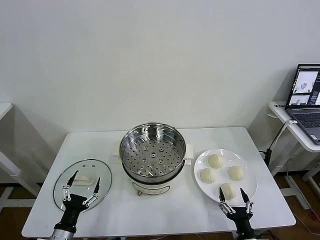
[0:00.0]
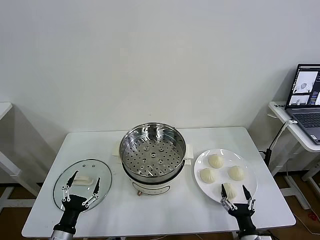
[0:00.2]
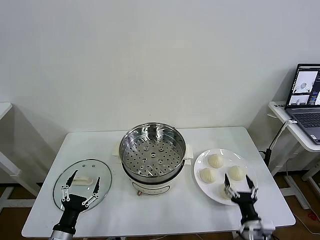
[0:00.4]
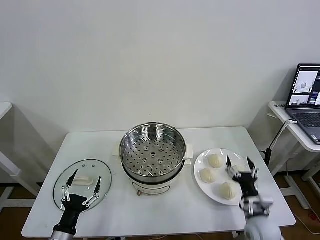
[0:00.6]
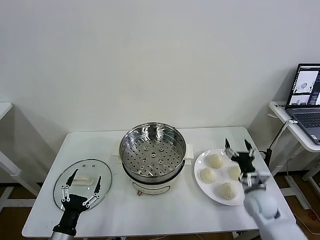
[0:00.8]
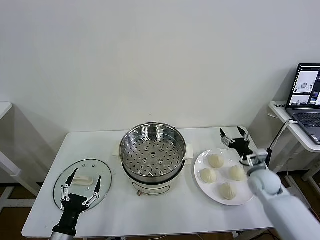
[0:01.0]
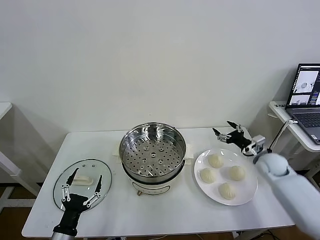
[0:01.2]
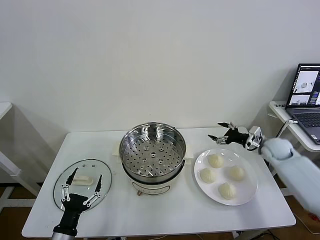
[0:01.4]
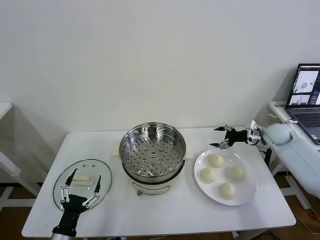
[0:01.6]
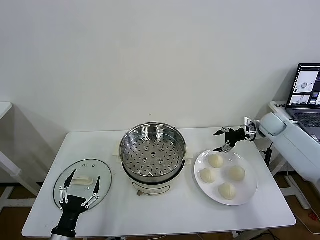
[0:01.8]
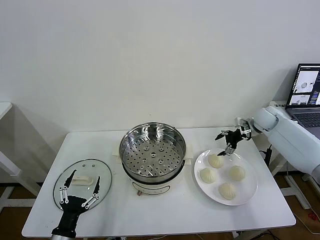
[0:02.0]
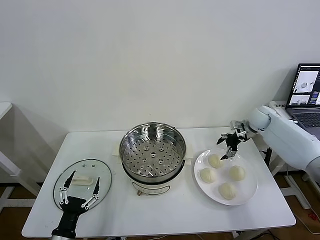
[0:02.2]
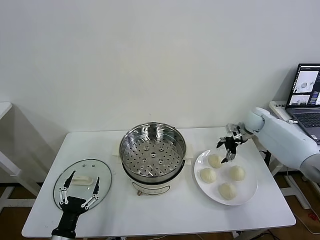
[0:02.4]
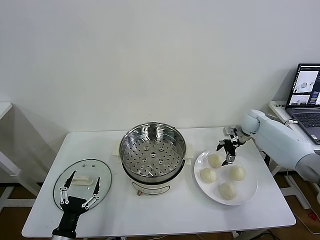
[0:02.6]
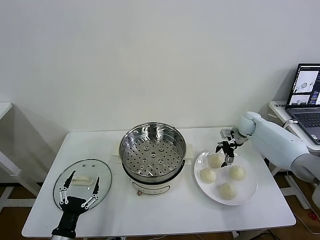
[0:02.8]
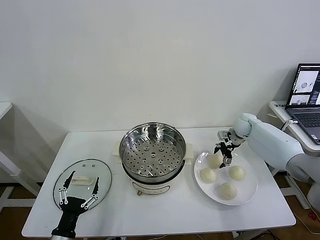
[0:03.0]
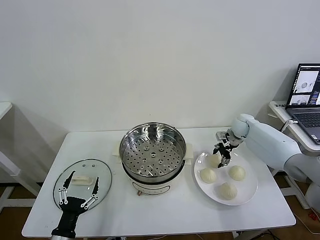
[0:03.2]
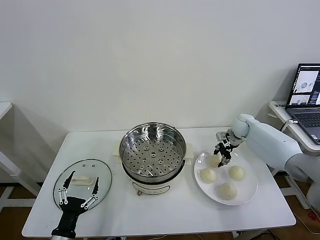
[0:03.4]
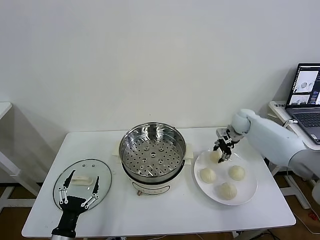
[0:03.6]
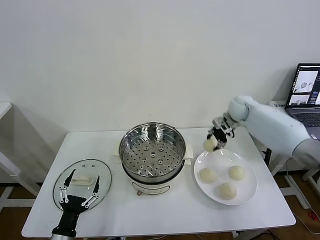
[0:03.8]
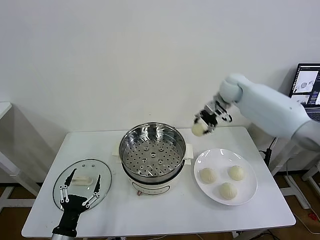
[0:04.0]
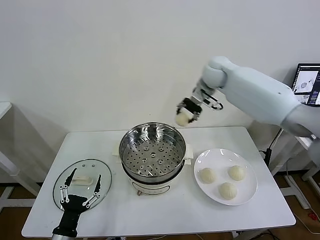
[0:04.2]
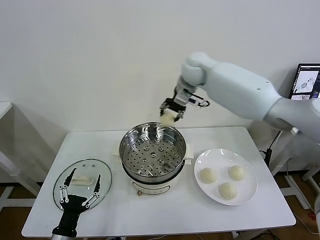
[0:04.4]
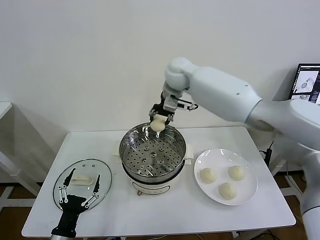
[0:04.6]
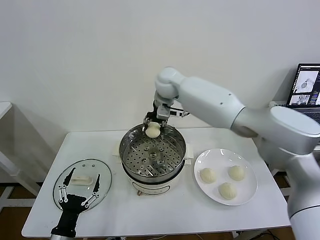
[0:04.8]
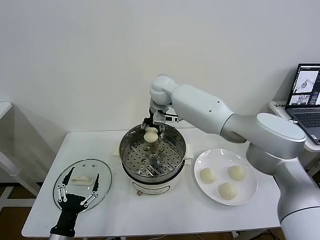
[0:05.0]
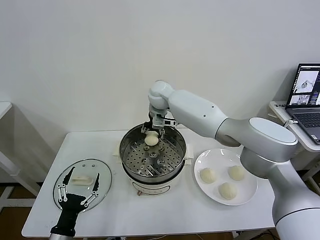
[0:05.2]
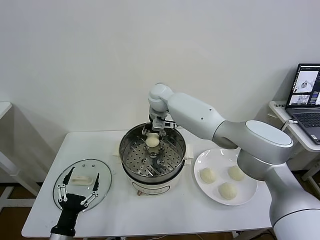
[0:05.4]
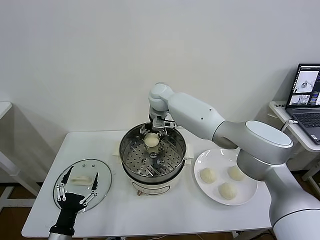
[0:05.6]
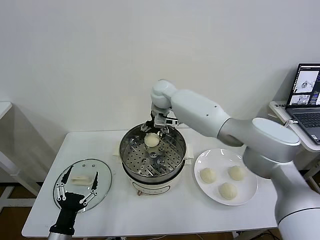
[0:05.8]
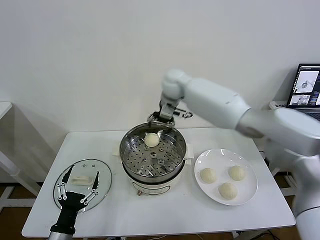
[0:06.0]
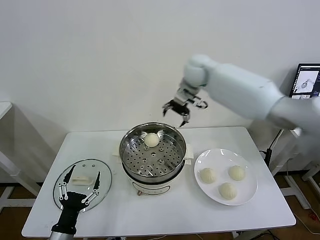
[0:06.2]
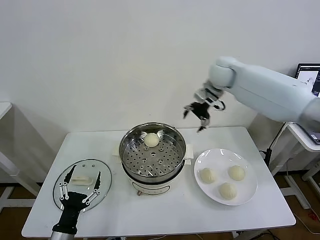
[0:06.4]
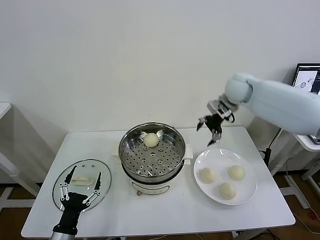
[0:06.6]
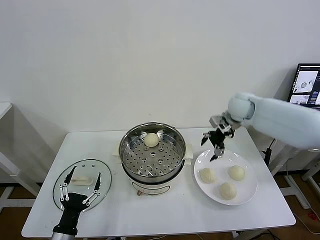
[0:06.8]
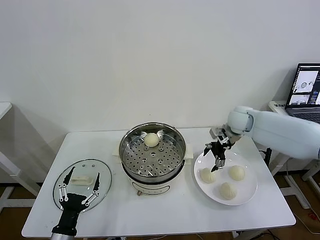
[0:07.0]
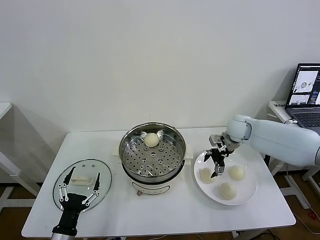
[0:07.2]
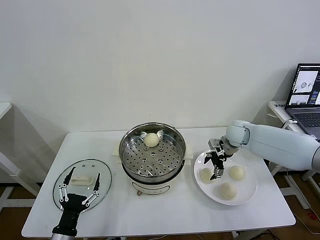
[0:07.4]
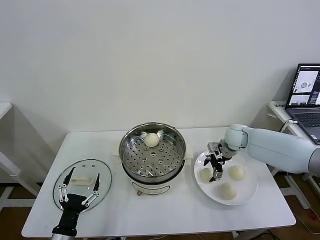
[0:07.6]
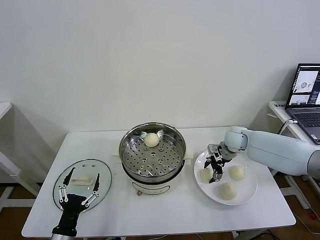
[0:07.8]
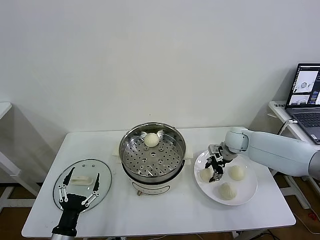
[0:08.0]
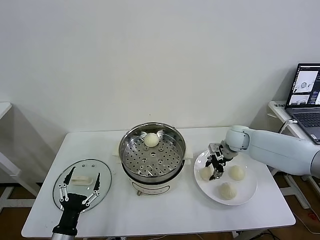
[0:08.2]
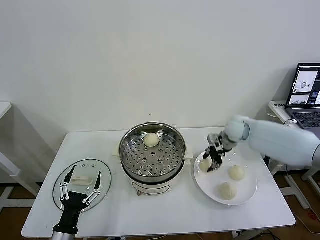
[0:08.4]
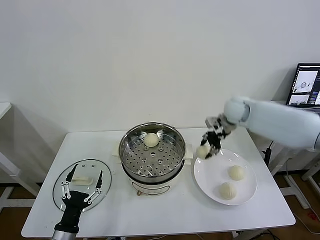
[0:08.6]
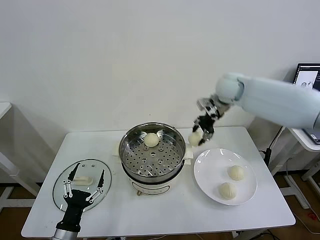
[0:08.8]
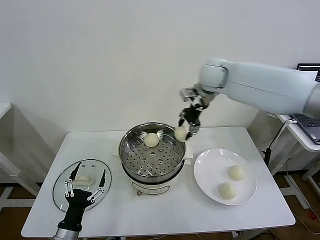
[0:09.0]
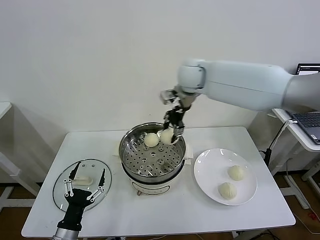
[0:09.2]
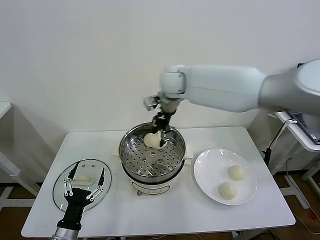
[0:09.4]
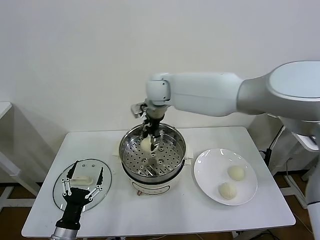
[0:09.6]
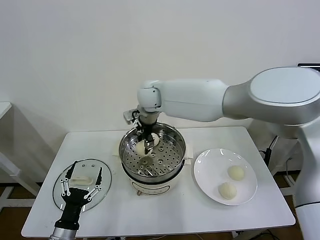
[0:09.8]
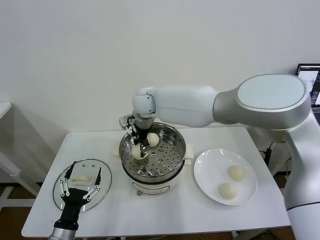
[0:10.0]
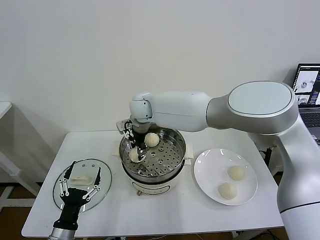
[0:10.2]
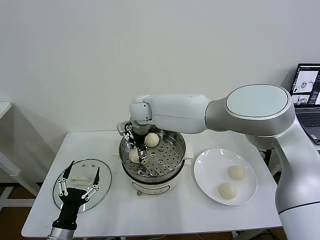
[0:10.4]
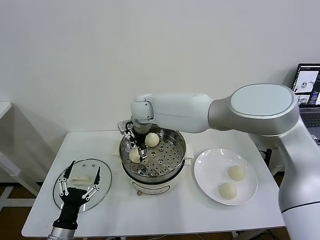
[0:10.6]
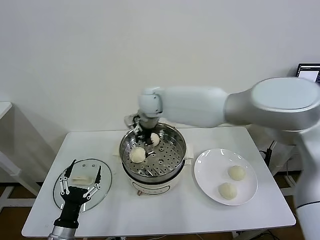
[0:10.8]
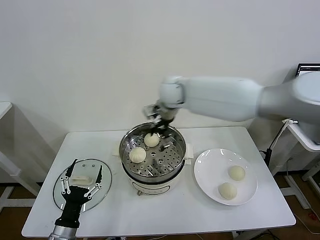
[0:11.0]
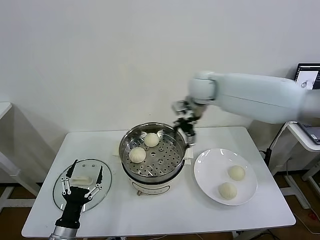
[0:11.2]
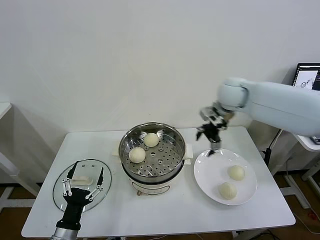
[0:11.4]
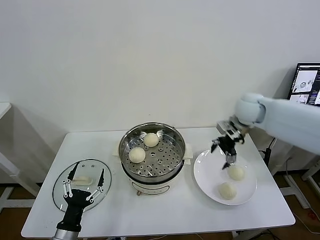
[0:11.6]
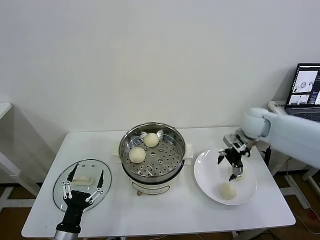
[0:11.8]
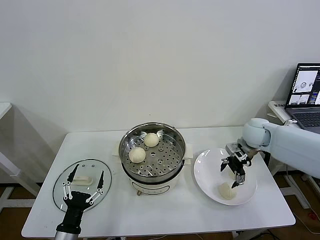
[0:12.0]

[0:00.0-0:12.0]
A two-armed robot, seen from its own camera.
Task of the whole recording: take steamed baozi put them in steamer then cover it.
Step, 0:00.0 to 0:03.2: Grasp the baozi in the plate with right gripper.
Step, 0:03.4 to 0:05.6: Place the baozi on the steamer with right gripper.
Step, 0:05.8 to 0:08.0: Grasp the baozi in the plate with right gripper.
Step, 0:08.2 to 0:10.4: Place the baozi on the steamer with right gripper.
0:01.6 to 0:03.0: The right gripper moves to the left and forward, some 10 cm, and closes.
0:03.0 to 0:04.4: The right gripper goes about 35 cm to the left and upward, and closes its fingers.
0:04.4 to 0:06.0: The right gripper reaches about 10 cm downward, then returns, and opens up.
0:06.0 to 0:07.6: The right gripper goes roughly 30 cm downward and to the right.
0:07.6 to 0:09.0: The right gripper shifts roughly 30 cm upward and to the left, and closes its fingers.
0:09.0 to 0:10.4: The right gripper goes roughly 25 cm to the left and downward, and opens up.
0:10.4 to 0:12.0: The right gripper shifts some 40 cm to the right.

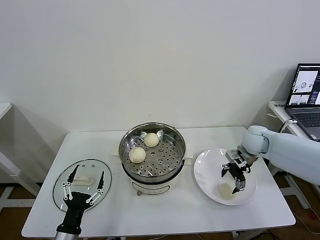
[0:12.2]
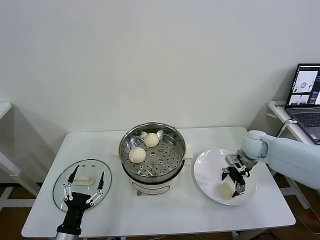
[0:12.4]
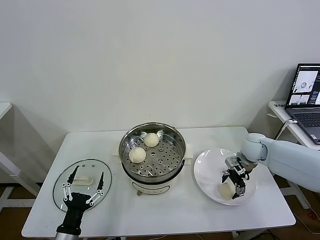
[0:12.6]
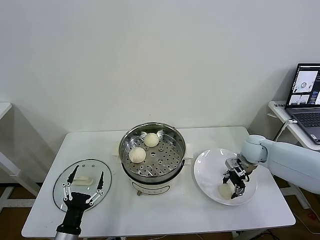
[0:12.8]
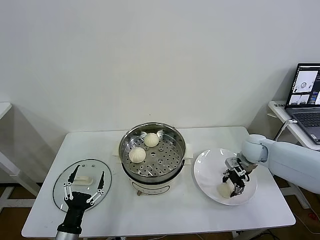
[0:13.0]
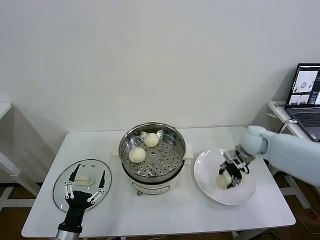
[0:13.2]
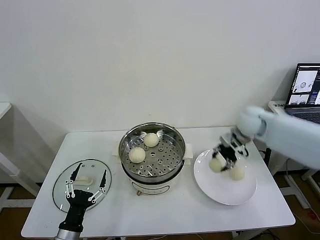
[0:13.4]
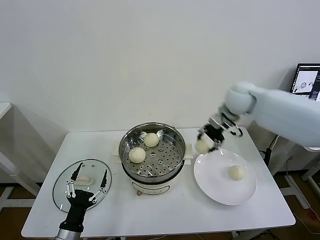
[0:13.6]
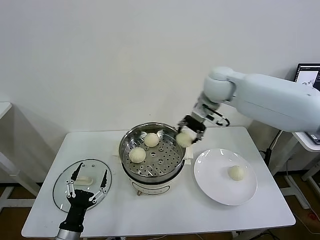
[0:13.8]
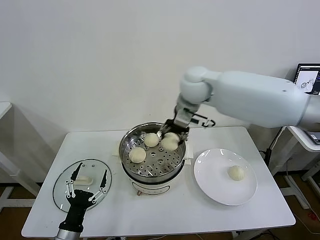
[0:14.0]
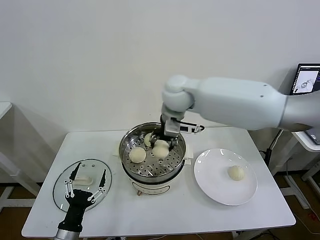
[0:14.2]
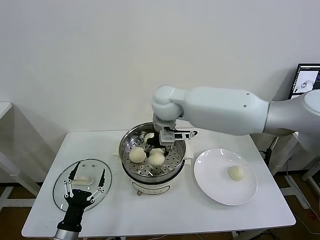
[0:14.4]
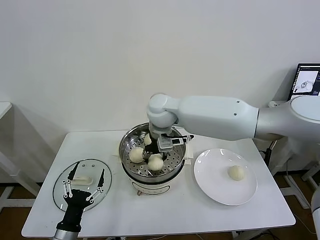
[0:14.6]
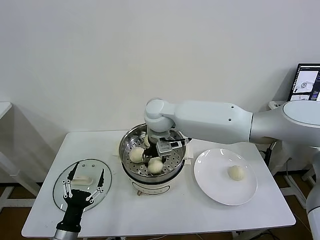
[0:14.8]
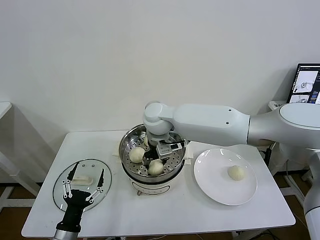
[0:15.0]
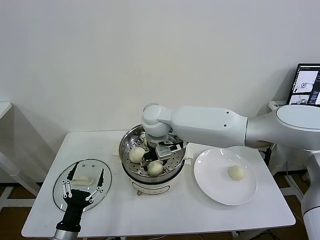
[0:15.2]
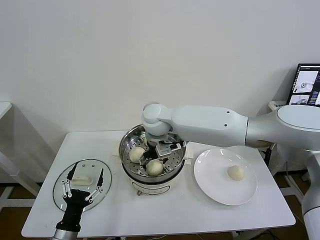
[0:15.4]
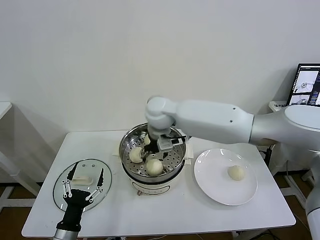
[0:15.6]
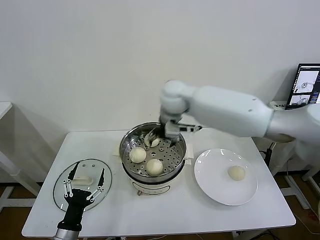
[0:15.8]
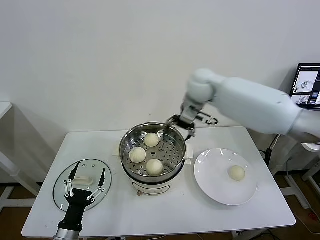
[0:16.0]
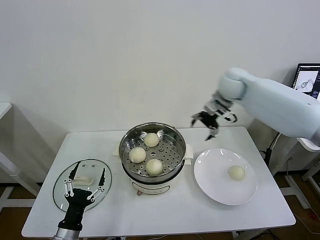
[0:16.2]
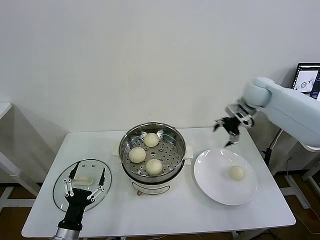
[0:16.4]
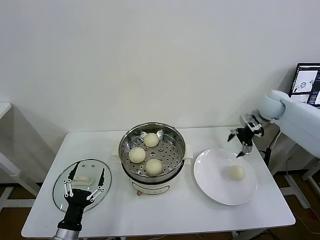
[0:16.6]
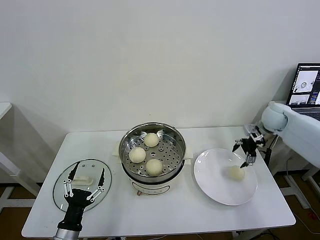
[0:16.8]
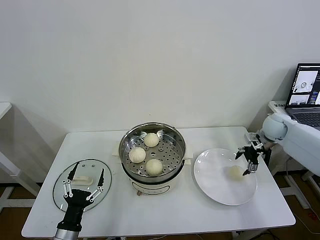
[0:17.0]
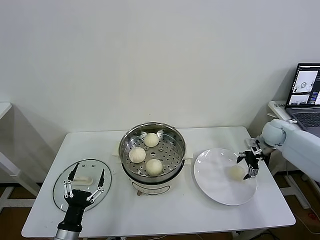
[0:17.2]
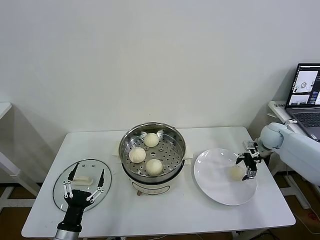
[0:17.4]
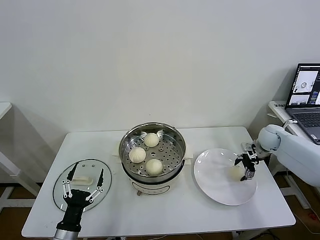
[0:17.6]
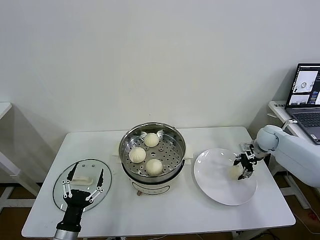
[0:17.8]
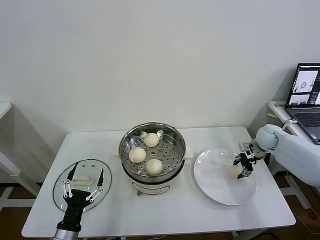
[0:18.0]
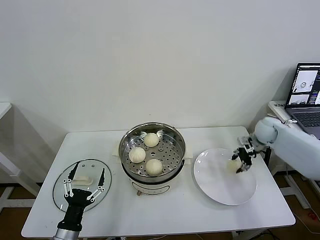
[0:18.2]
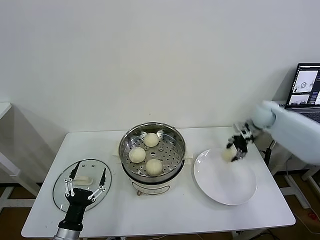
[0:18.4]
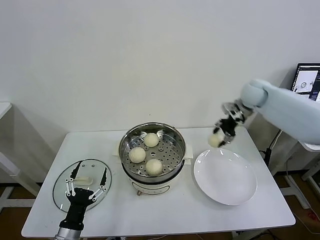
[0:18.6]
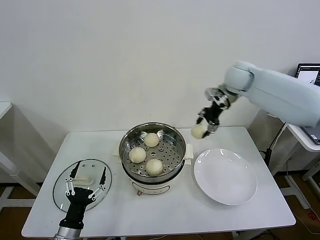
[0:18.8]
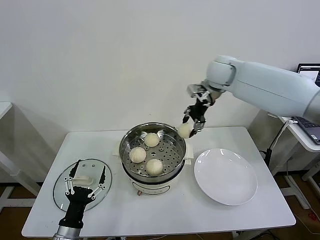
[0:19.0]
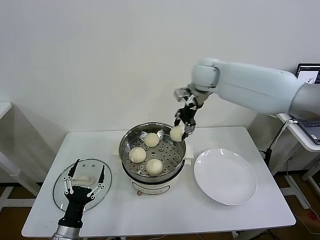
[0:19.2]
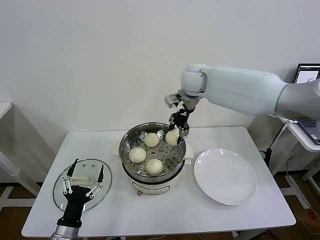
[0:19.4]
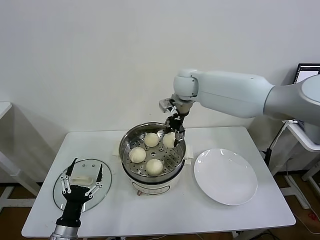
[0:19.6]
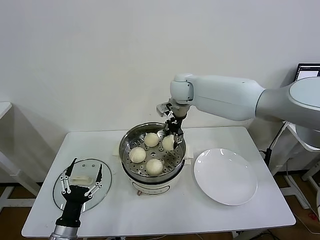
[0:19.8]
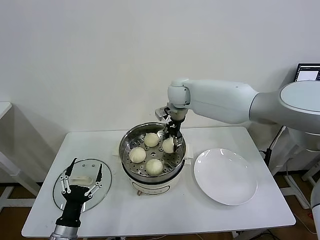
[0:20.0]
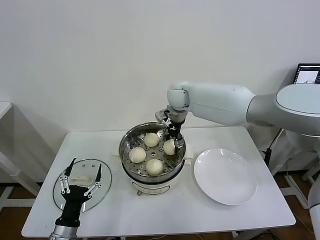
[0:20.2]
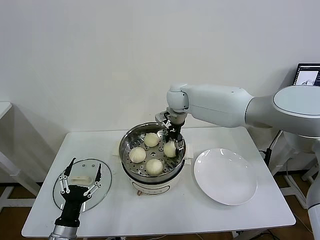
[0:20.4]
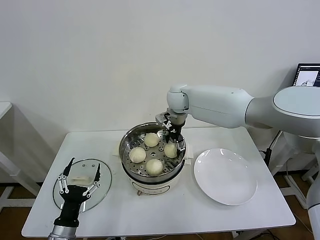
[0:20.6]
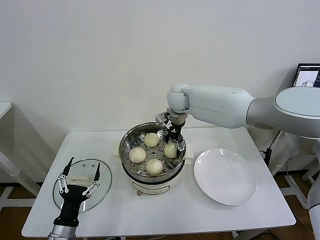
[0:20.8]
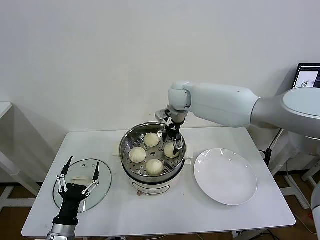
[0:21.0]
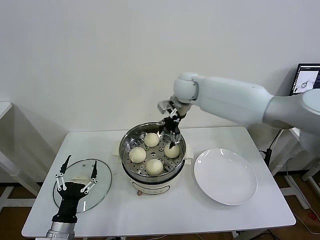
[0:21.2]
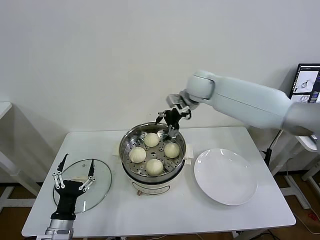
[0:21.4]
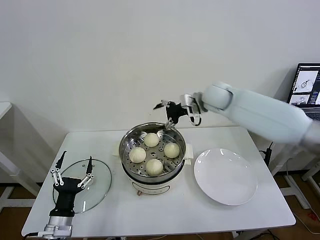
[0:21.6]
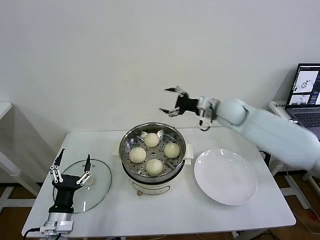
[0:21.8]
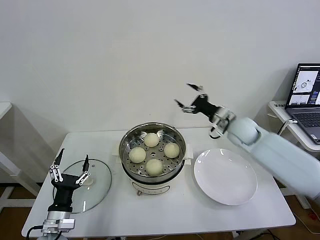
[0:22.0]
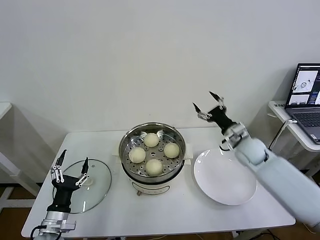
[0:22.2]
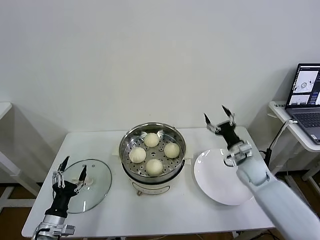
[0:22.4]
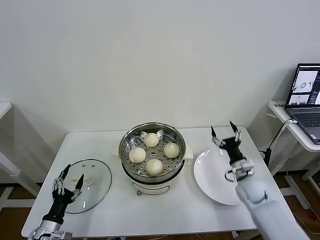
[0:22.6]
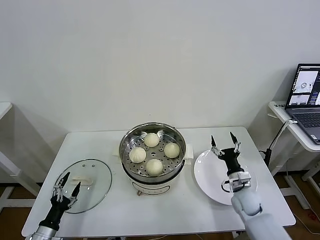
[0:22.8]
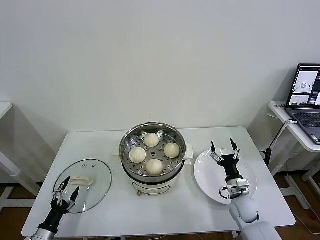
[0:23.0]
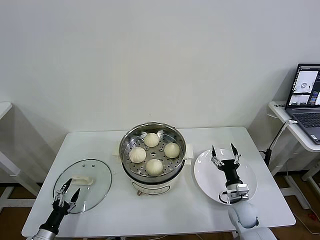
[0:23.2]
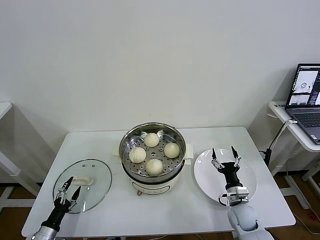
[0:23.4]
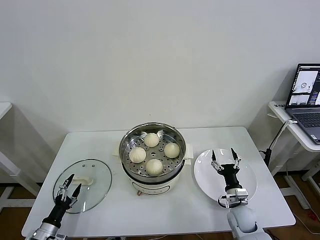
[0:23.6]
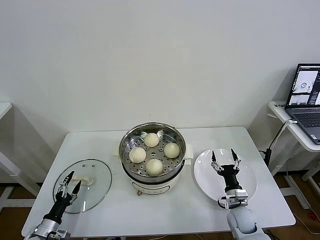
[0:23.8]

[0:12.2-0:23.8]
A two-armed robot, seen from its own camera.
Task of the whole recording: take steamed baozi put them in steamer then cover it.
Step, 0:13.0 to 0:15.4: Place the baozi on the steamer with right gripper.
Step, 0:15.6 to 0:17.8: Grasp the baozi in the plate with right gripper.
Step, 0:18.0 to 0:20.6: Place the baozi on the steamer with right gripper.
0:12.2 to 0:13.6: The right gripper heads upward and to the left, covering some 20 cm, and closes up.
0:13.6 to 0:15.0: The right gripper goes some 25 cm to the left.
0:15.0 to 0:16.6: The right gripper heads to the right, covering about 40 cm, and opens its fingers.
0:16.6 to 0:18.0: The right gripper heads downward, covering roughly 10 cm, and closes its fingers.
0:18.0 to 0:19.4: The right gripper shifts about 40 cm to the left and upward.
0:19.4 to 0:21.0: The right gripper travels downward by some 5 cm, and opens its fingers.
0:21.0 to 0:22.4: The right gripper shifts about 35 cm to the right, downward and backward. The left gripper heads to the left, covering about 5 cm.
0:22.4 to 0:23.8: The right gripper shifts approximately 20 cm downward and backward. The left gripper shifts roughly 15 cm downward and to the left.
